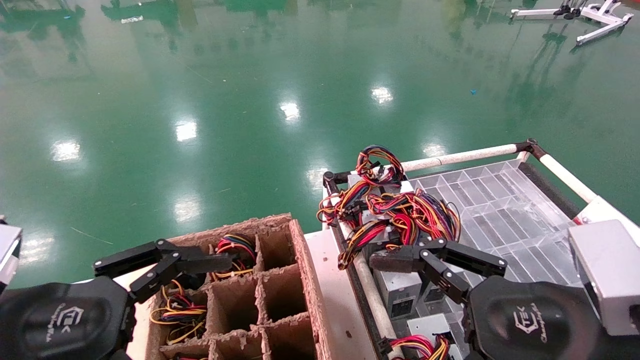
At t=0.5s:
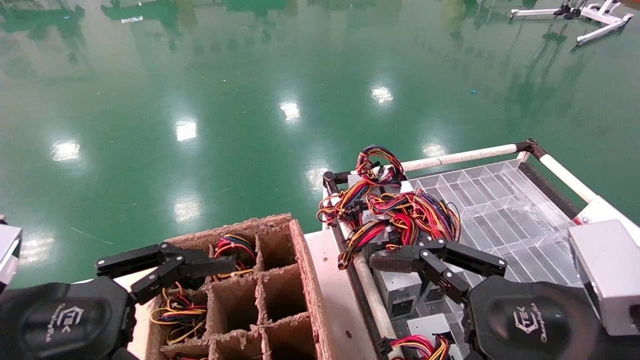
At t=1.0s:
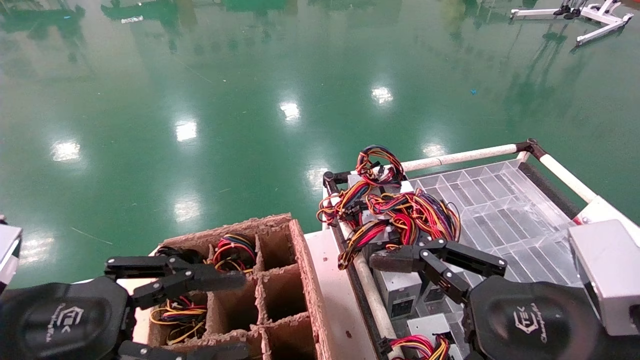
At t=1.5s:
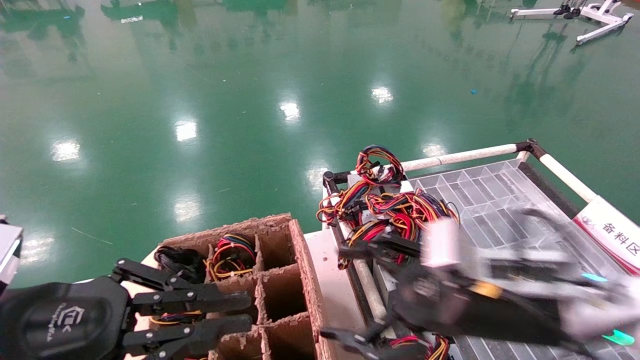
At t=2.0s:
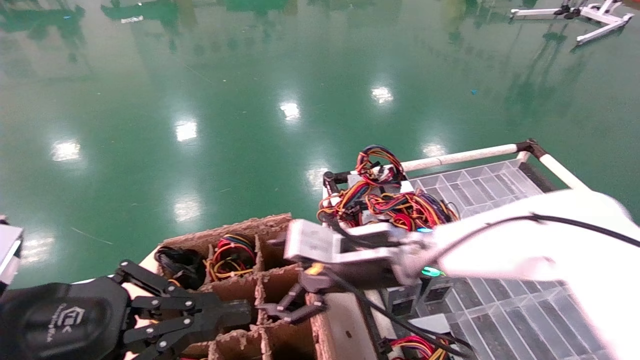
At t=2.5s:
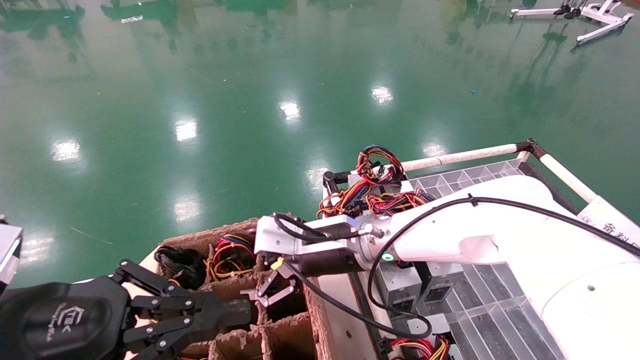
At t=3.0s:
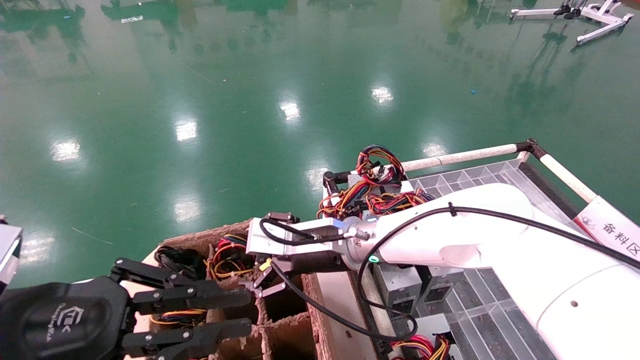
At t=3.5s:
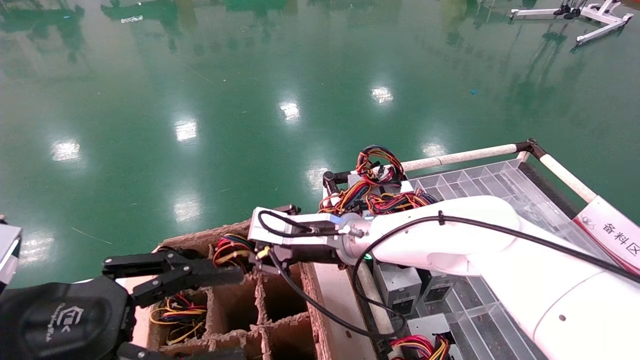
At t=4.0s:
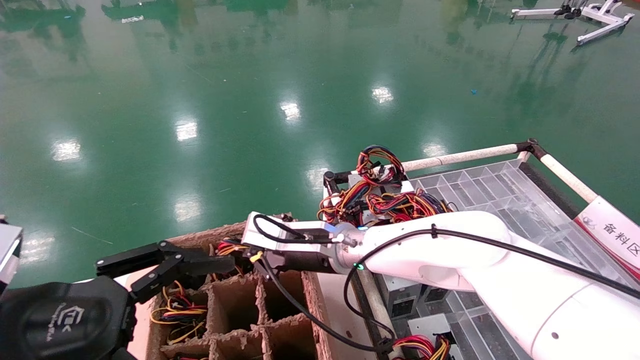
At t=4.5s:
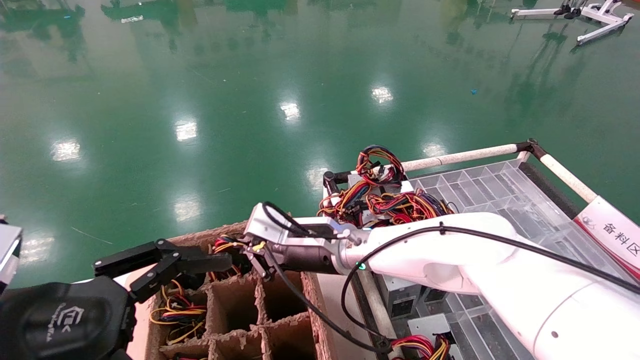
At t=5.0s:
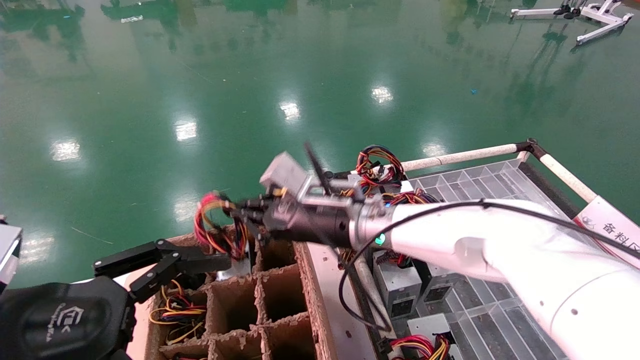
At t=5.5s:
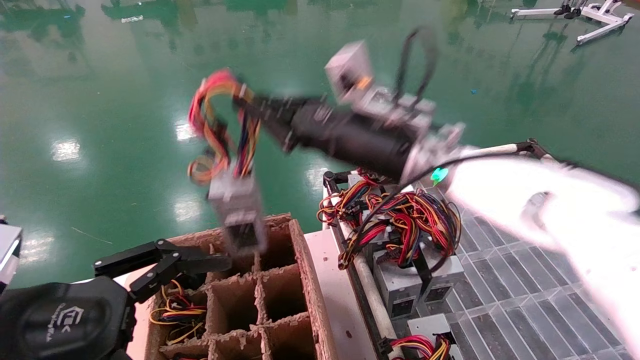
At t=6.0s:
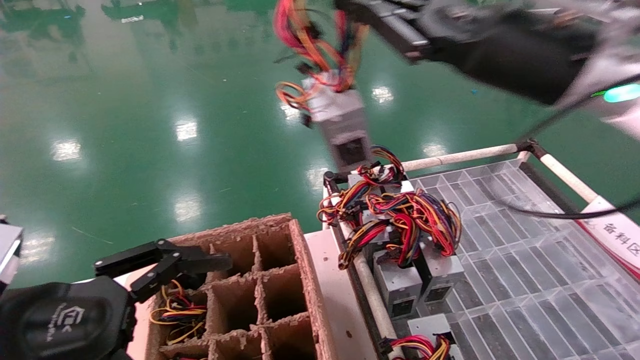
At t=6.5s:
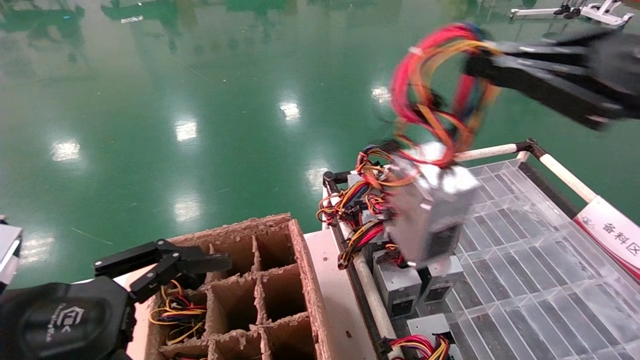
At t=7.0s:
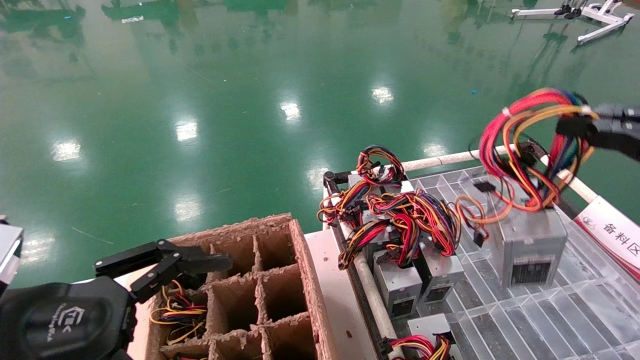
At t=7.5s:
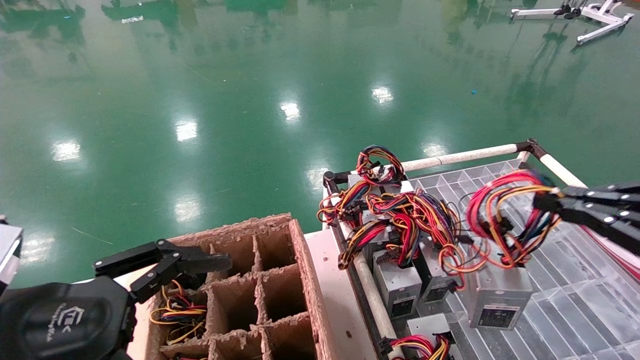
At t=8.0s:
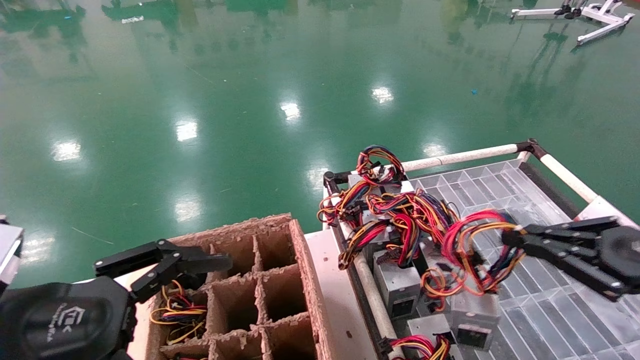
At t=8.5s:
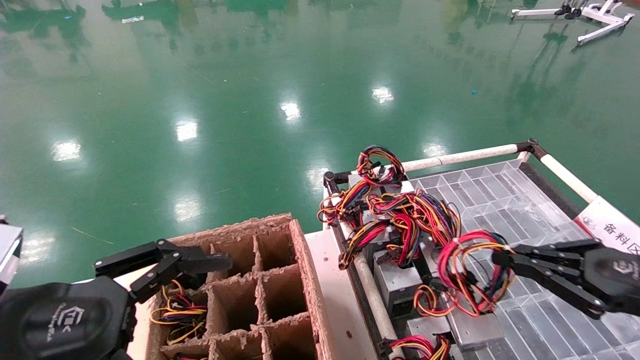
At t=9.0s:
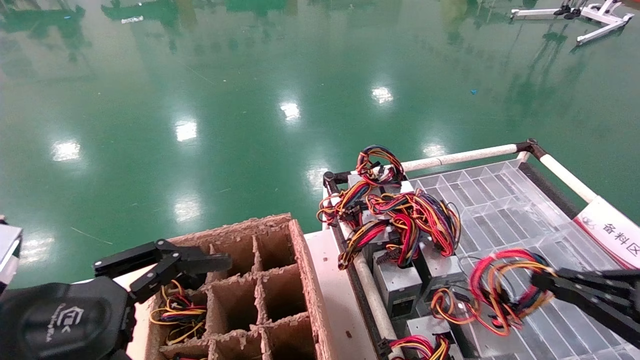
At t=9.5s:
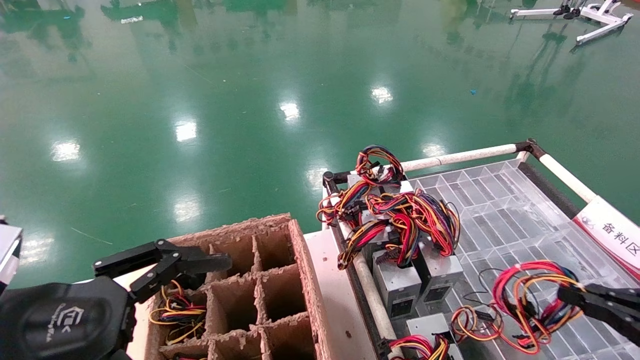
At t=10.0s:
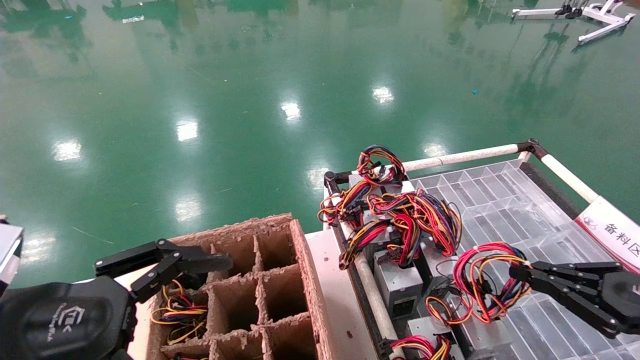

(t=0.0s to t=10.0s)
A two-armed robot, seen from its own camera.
Step, t=1.0s - t=4.0s: Grab and lift the power supply from the large box.
t=0.0s - t=2.0s: The left gripper closes; the right gripper shifts roughly 25 cm forward and to the left.
t=2.0s - t=4.0s: The right gripper heads to the left and forward, covering about 10 cm, and closes, while the left gripper opens its fingers.
t=4.0s - t=6.0s: The right gripper heads upward, to the right and backward, covering some 35 cm.
t=6.0s - t=8.0s: The right gripper shifts some 25 cm to the right and downward.
t=8.0s - t=10.0s: The right gripper heads downward, covering about 5 cm.

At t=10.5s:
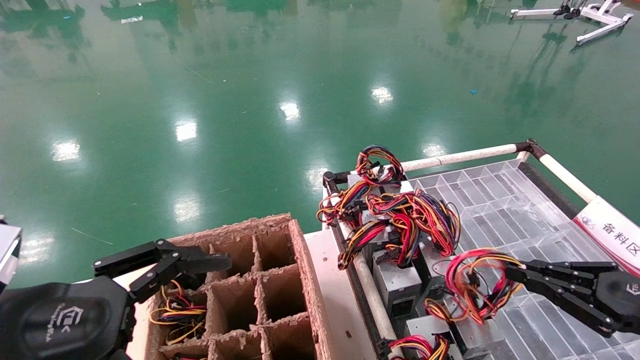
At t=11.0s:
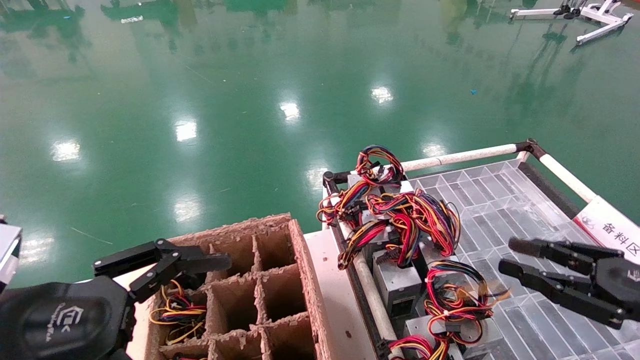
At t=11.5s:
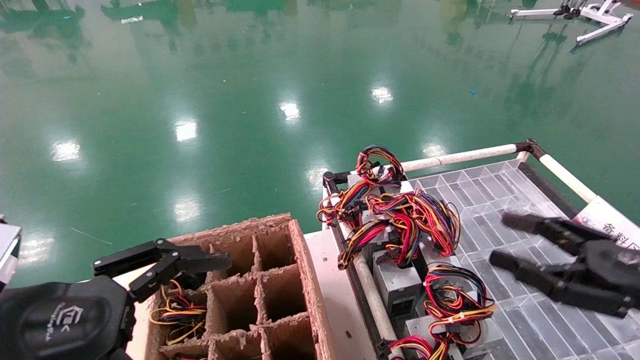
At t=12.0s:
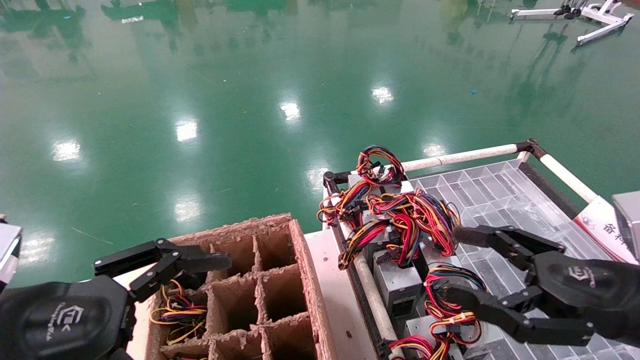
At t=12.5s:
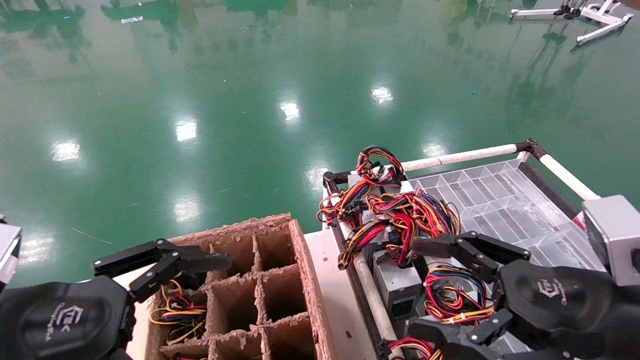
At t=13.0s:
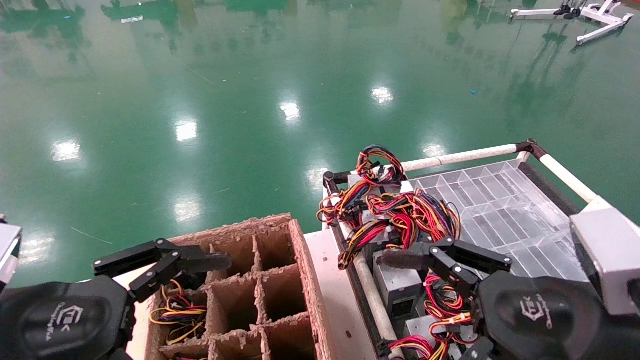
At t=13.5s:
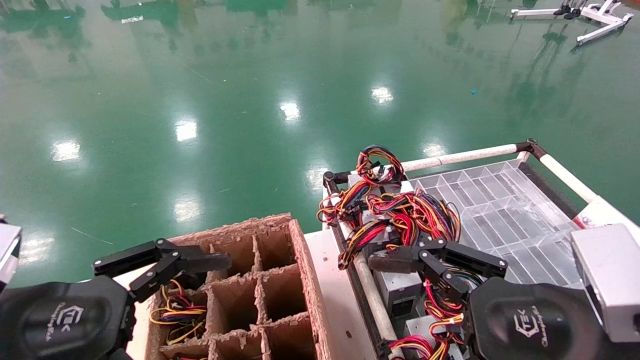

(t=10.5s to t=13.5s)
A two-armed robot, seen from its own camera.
t=10.5s - t=12.0s: The right gripper is displaced to the left by roughly 10 cm, and opens up.
t=12.0s - t=13.5s: The right gripper moves to the left and backward, approximately 10 cm.
